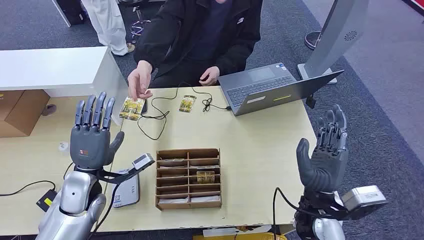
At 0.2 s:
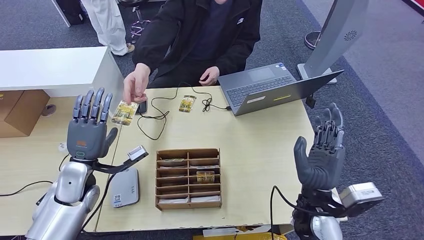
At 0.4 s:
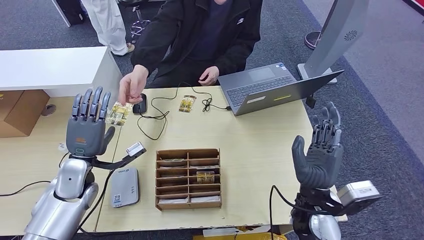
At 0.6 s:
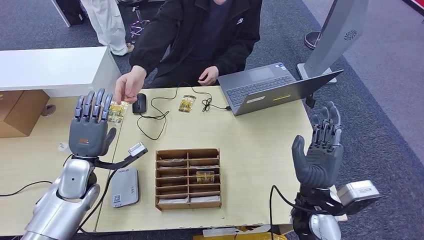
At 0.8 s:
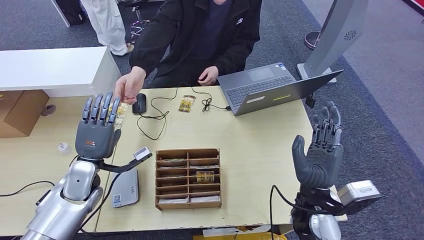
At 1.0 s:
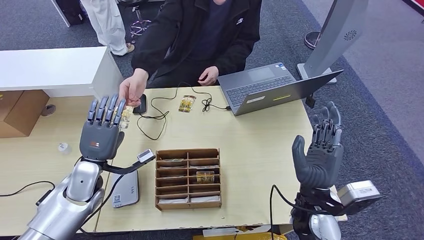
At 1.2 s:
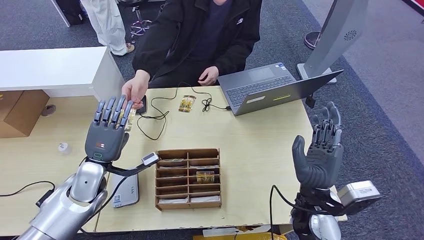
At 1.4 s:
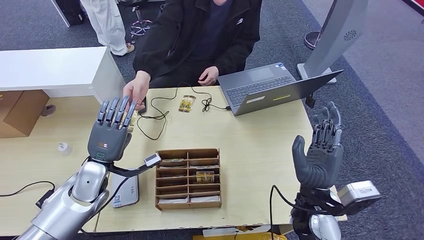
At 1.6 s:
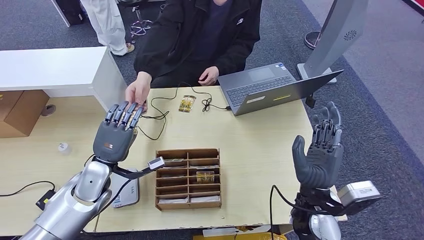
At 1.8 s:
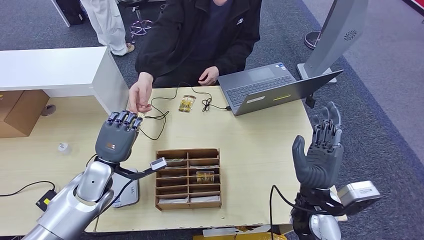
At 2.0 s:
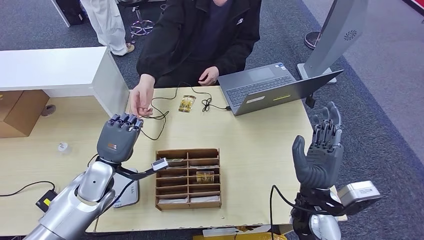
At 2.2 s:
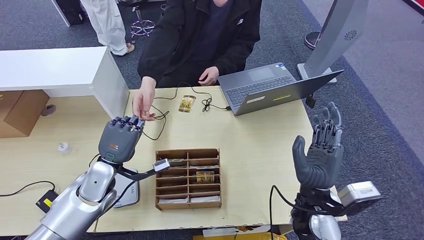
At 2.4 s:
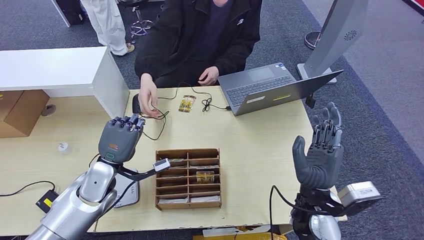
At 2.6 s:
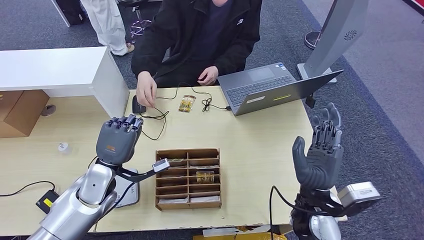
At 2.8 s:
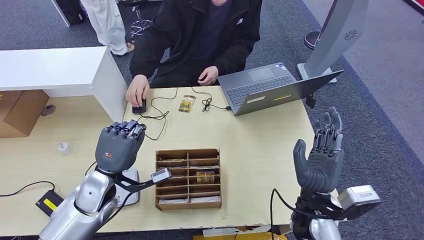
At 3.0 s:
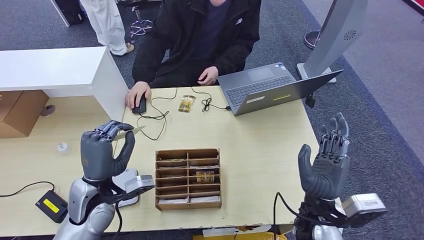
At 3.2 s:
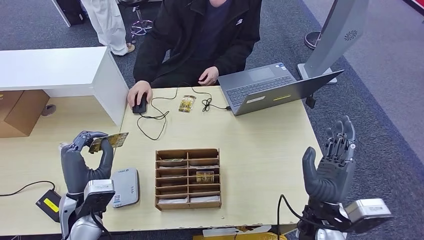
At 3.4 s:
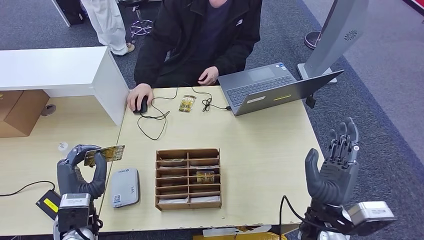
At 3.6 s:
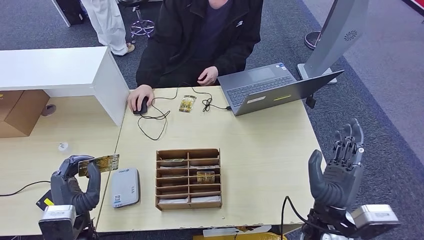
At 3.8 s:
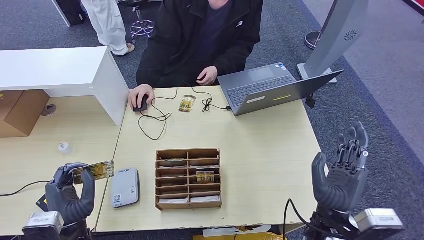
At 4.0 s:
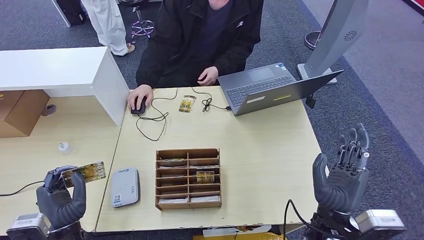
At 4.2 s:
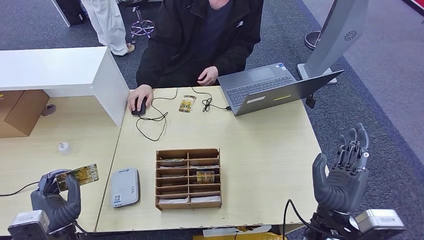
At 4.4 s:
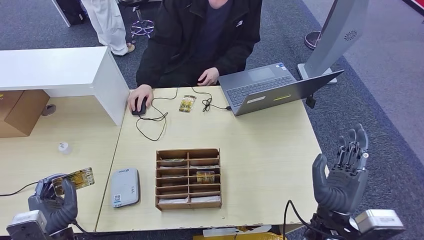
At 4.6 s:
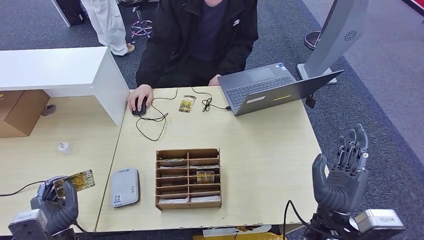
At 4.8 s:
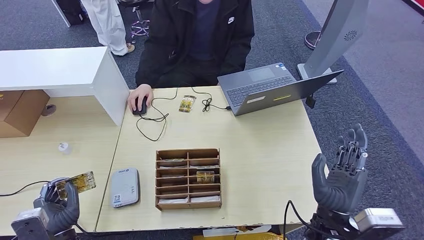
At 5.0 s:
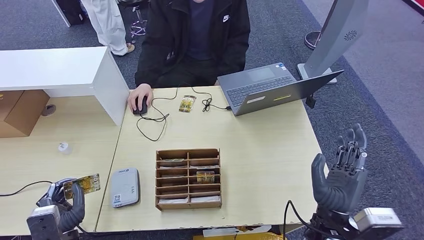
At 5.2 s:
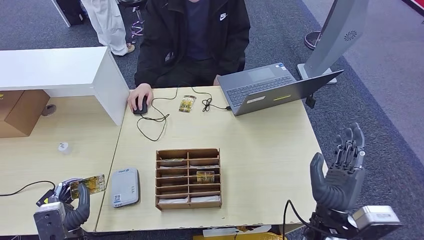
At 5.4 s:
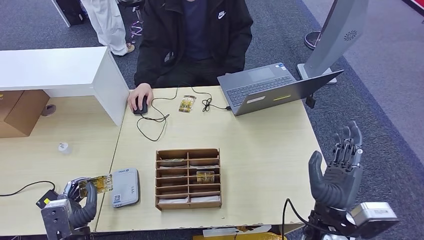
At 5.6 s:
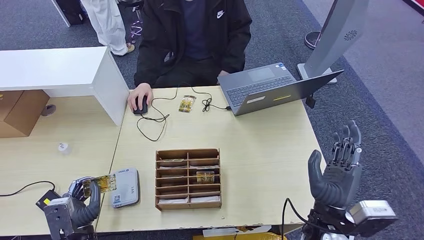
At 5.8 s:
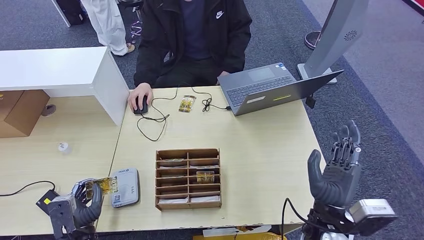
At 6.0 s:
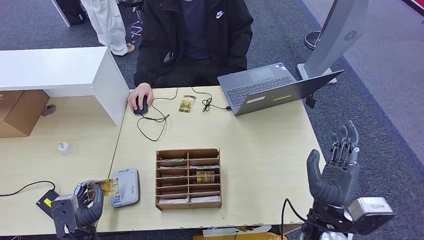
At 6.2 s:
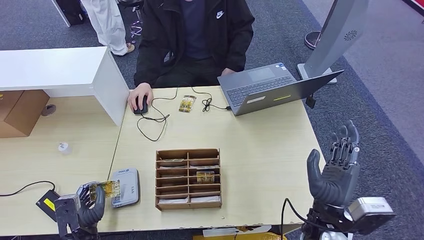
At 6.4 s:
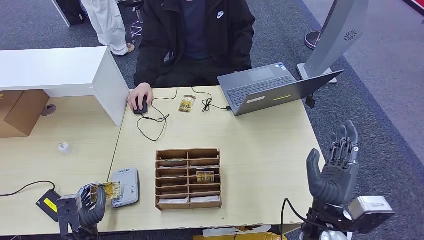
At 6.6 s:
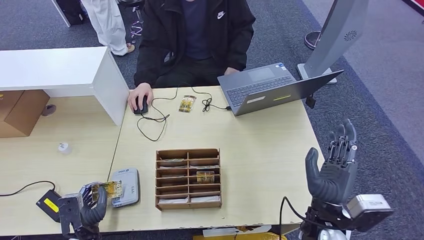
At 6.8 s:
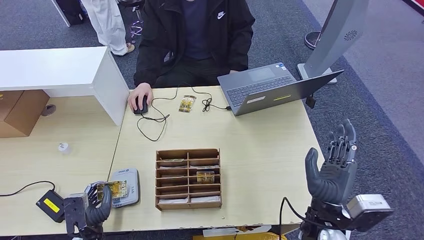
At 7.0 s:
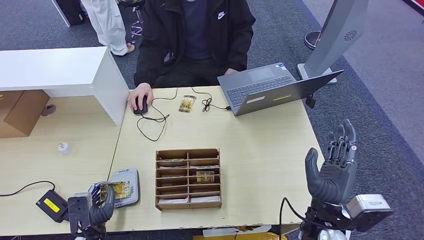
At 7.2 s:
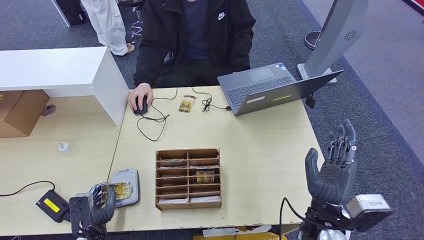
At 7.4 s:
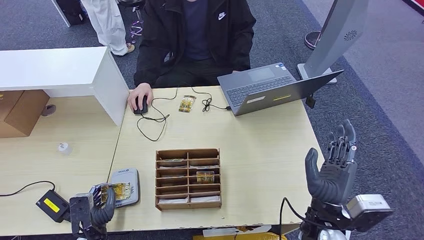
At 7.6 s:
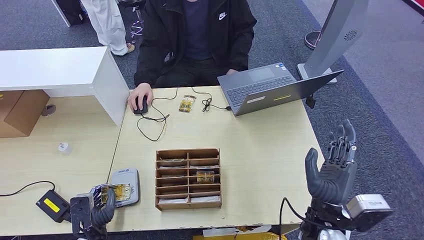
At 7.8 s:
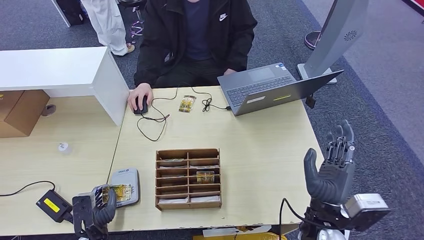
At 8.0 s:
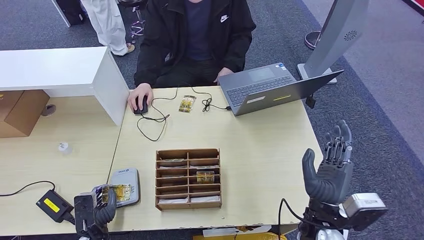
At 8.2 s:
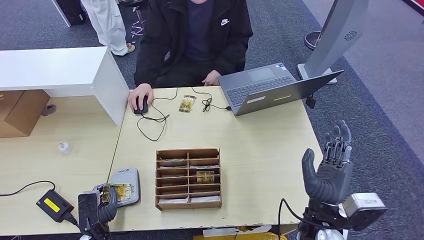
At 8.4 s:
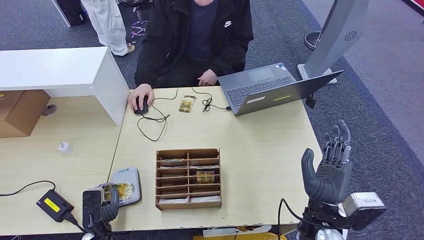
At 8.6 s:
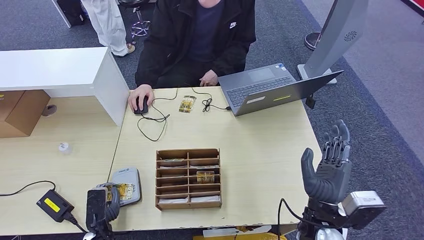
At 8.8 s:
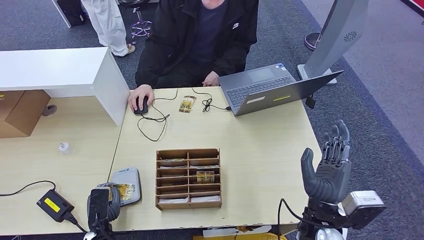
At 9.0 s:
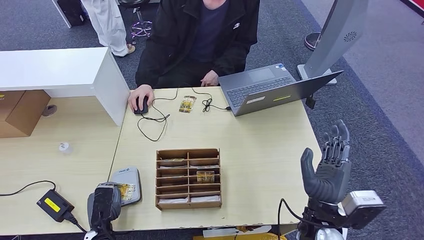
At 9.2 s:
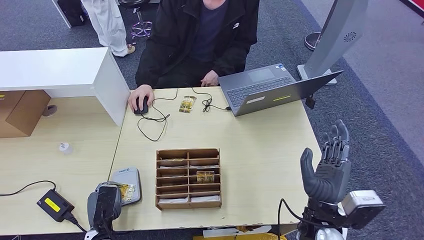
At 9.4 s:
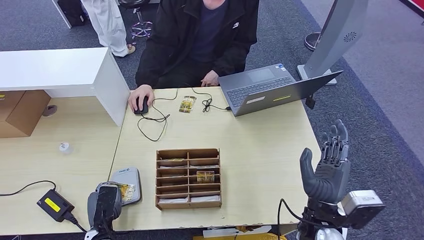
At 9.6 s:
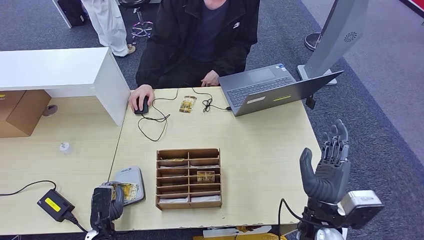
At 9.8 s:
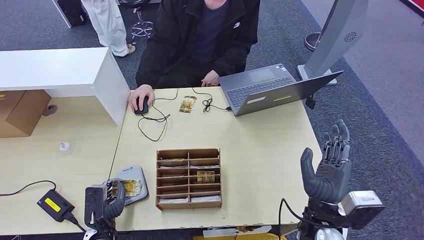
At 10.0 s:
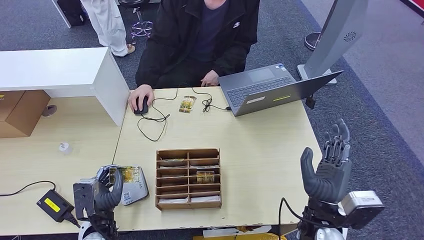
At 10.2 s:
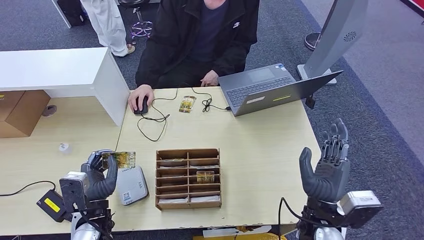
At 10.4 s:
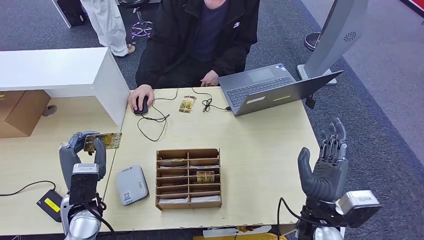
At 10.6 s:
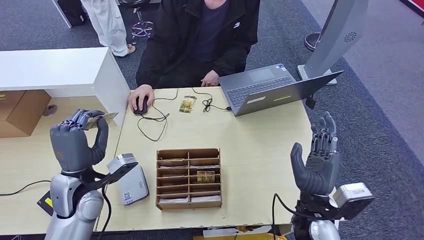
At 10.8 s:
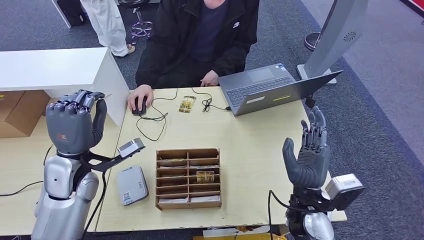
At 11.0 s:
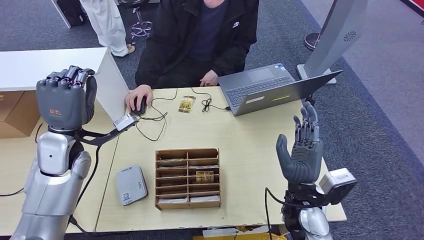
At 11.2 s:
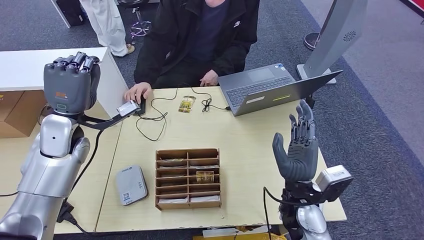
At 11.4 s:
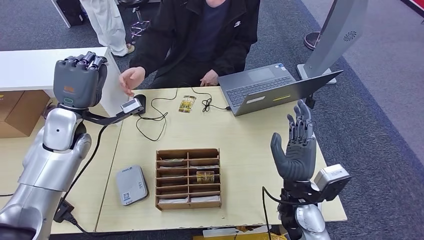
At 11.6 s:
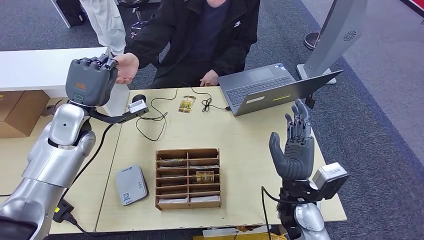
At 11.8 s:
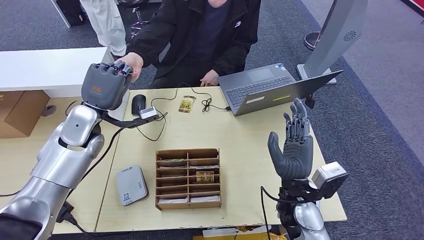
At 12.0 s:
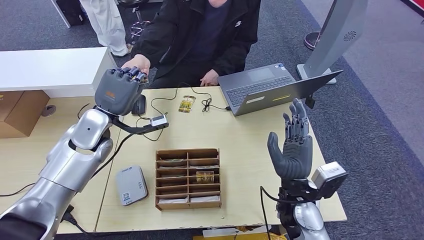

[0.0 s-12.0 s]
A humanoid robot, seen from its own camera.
Step, 0.0 to 2.8 s: Take the ID card from the person's hand.
Step, 3.4 to 8.8 s: Place the ID card on the card reader.
1.6 to 3.0 s: The left hand is displaced backward by roughly 5 cm.
3.0 to 4.4 s: The left hand goes some 15 cm backward, downward and to the left.
4.4 to 6.0 s: The left hand shifts approximately 5 cm downward.
6.0 to 9.0 s: The hands make only small movements.
9.0 to 10.4 s: The left hand goes some 15 cm upward and forward.

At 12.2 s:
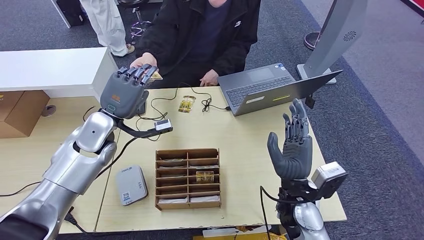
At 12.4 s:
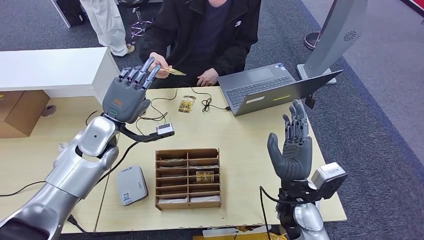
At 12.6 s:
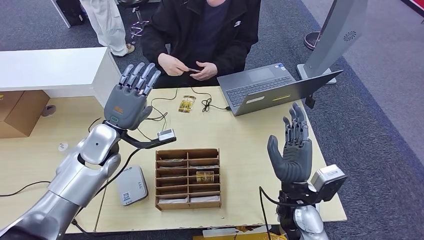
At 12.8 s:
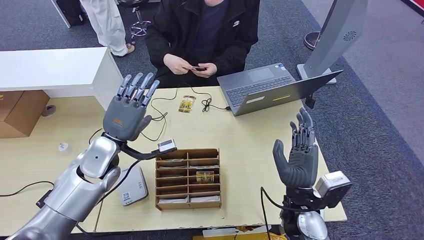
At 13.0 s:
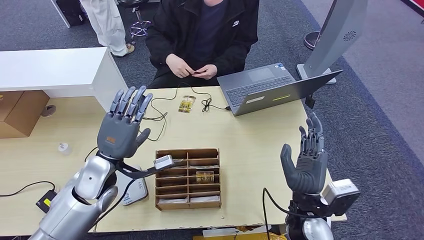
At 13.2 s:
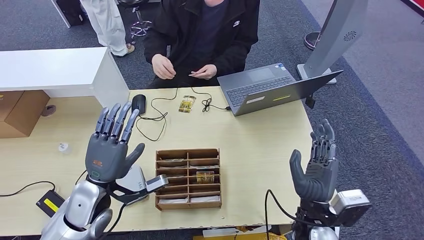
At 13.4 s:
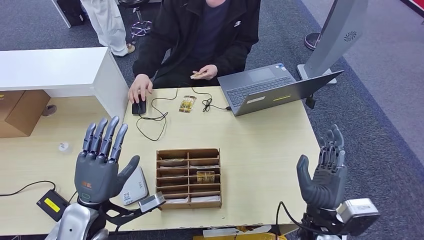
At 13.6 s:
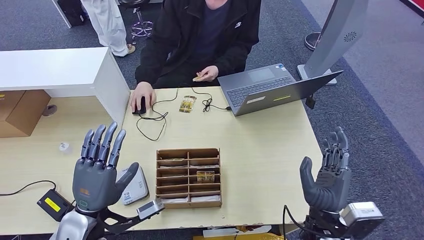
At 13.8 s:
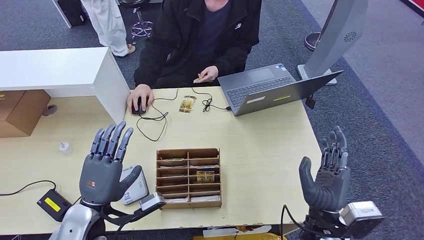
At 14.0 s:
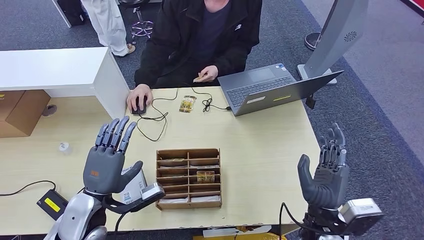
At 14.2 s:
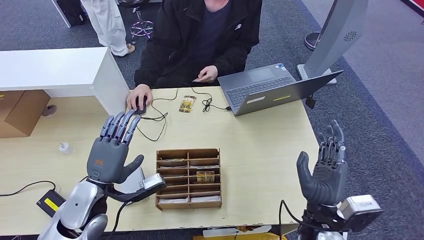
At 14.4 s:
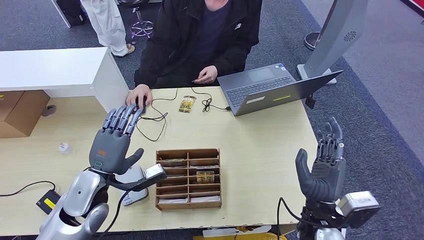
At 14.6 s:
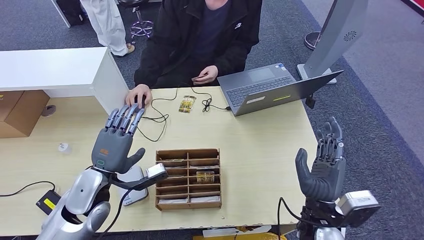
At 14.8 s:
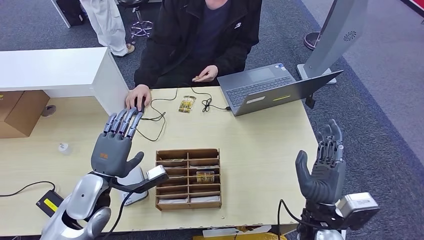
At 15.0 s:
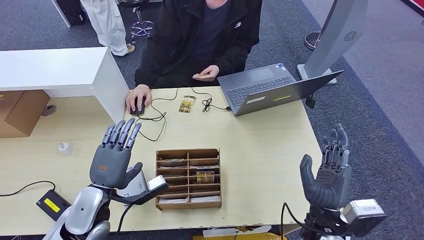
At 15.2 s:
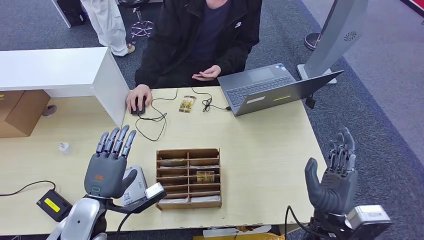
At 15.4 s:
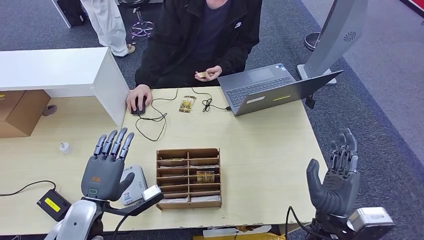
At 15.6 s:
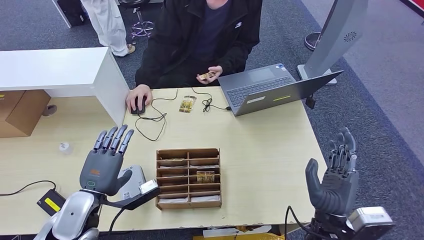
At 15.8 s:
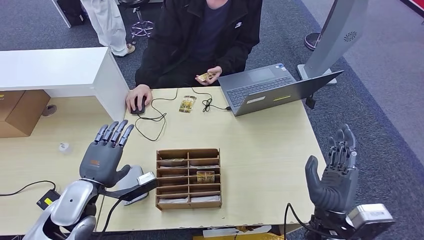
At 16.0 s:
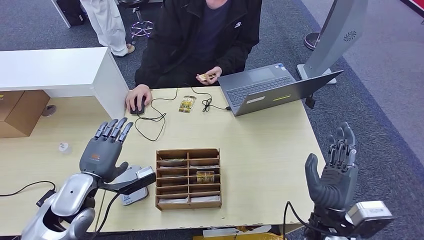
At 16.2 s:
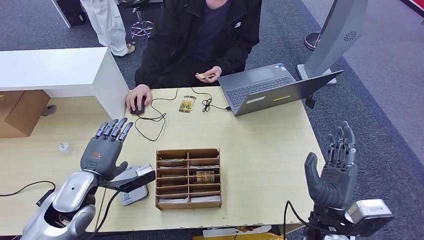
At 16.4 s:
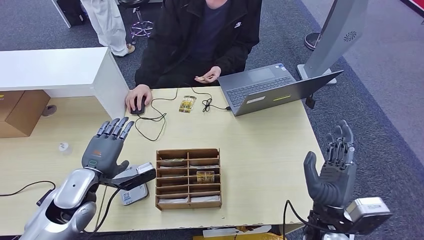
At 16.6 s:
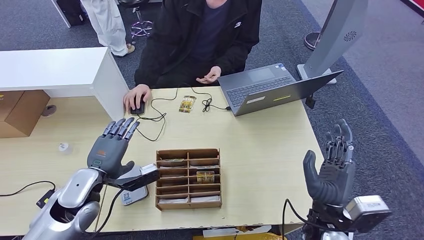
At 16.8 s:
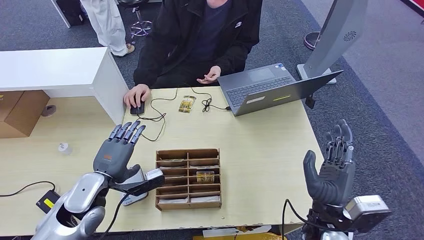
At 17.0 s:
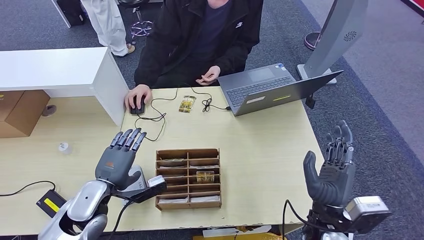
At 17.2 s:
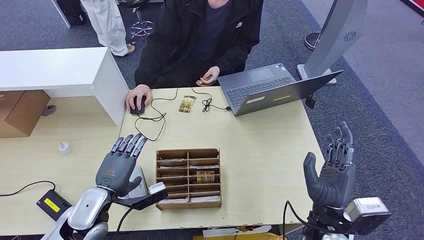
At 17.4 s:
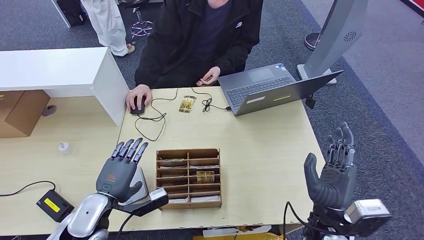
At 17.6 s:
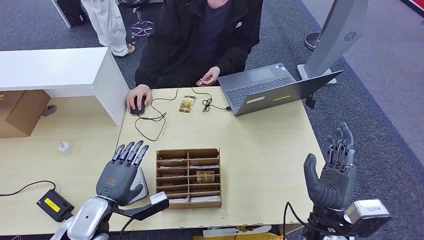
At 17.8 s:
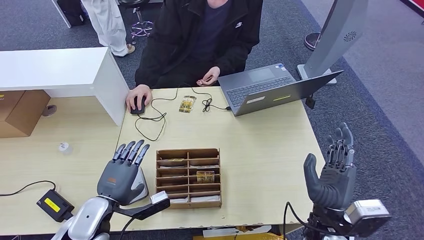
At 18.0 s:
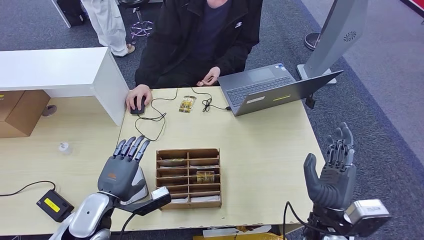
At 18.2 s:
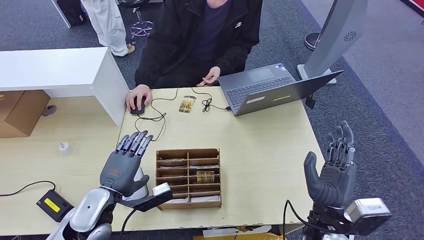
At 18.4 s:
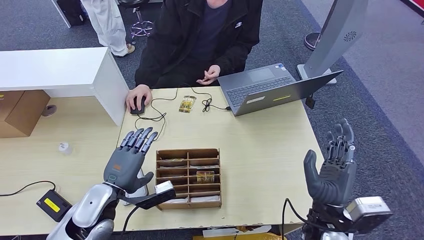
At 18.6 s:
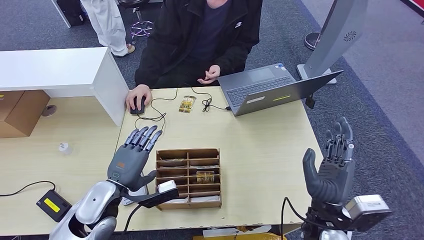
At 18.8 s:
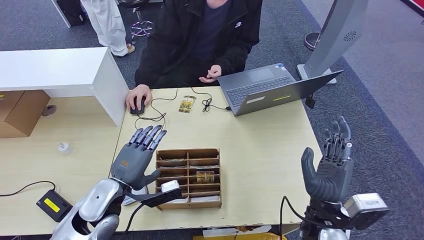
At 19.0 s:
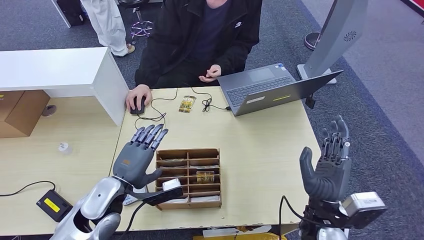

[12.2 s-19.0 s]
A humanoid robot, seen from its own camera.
15.0 to 16.2 s: There are only small adjustments of the hands.
16.2 to 17.6 s: The left hand shifts by approximately 5 cm.
17.6 to 19.0 s: The left hand changes place by some 5 cm.
